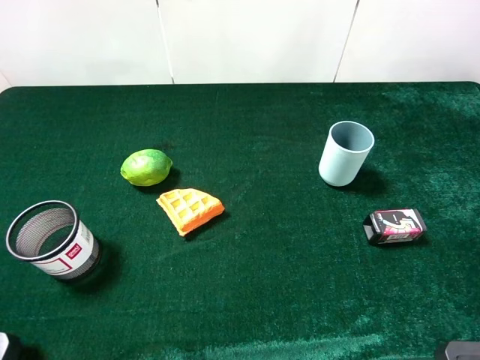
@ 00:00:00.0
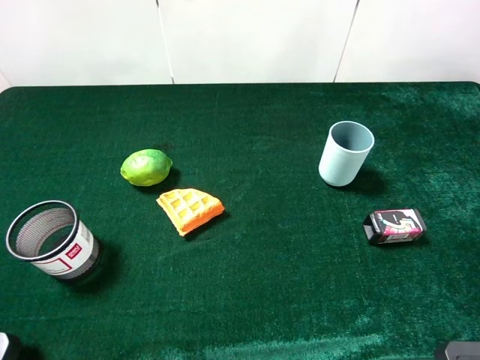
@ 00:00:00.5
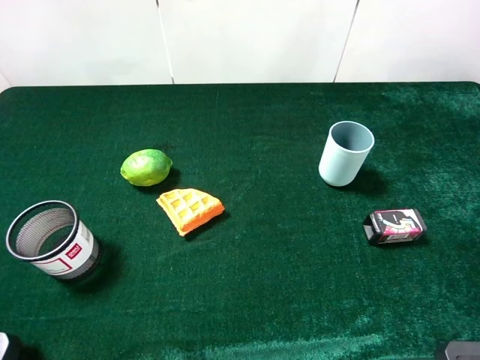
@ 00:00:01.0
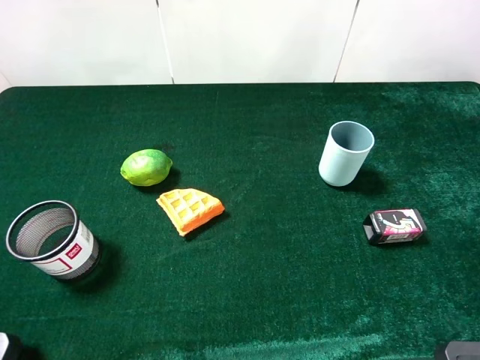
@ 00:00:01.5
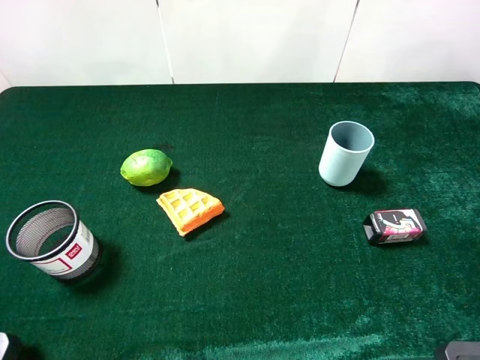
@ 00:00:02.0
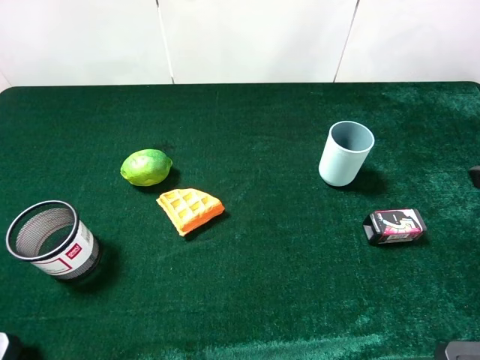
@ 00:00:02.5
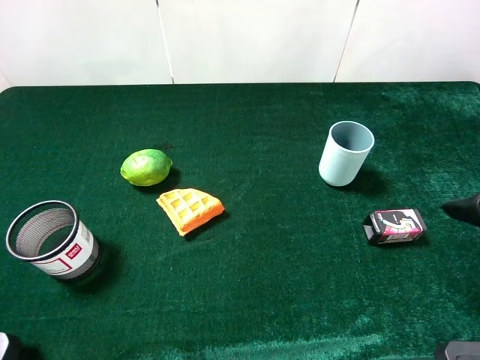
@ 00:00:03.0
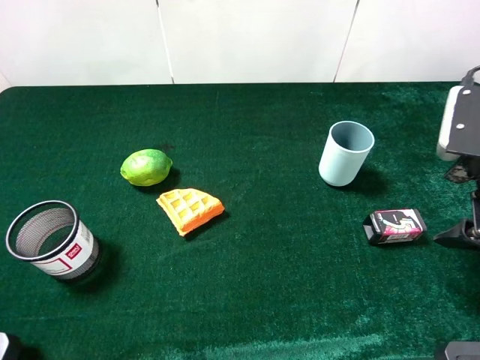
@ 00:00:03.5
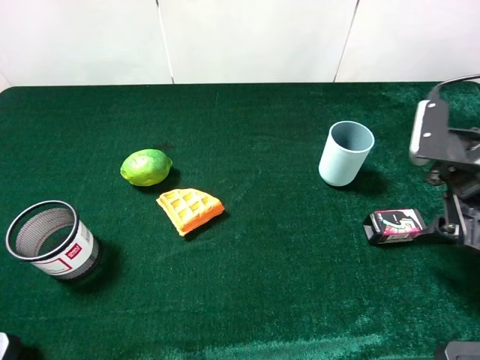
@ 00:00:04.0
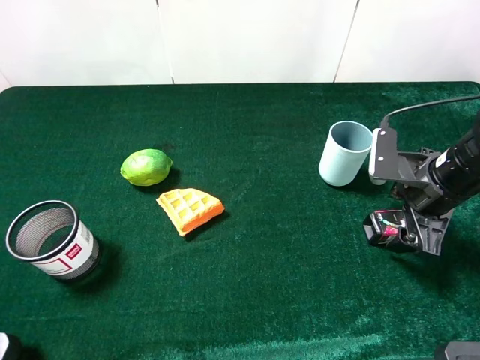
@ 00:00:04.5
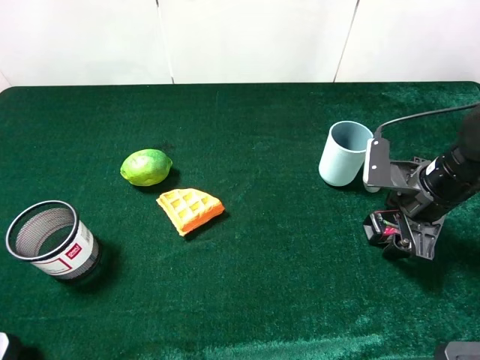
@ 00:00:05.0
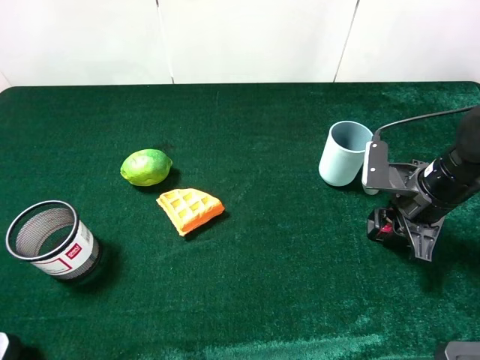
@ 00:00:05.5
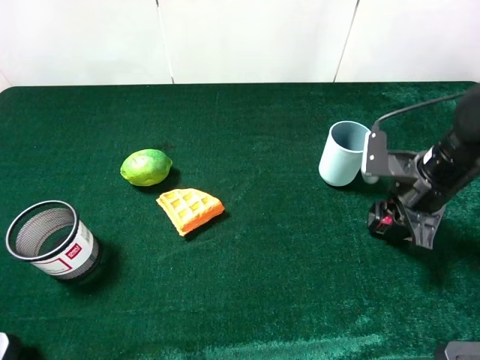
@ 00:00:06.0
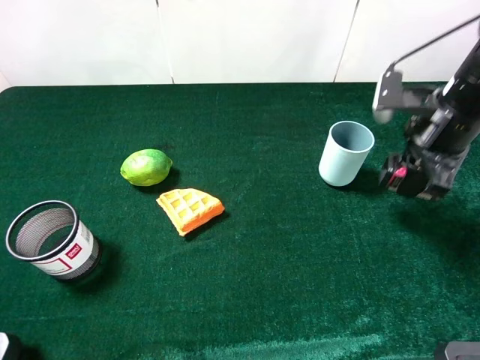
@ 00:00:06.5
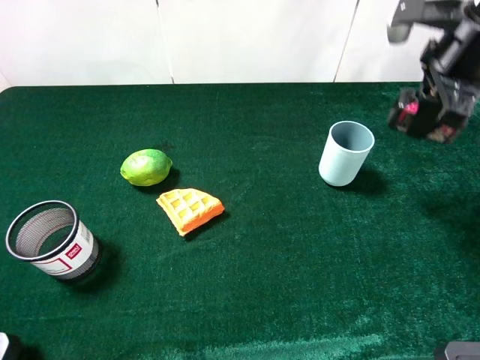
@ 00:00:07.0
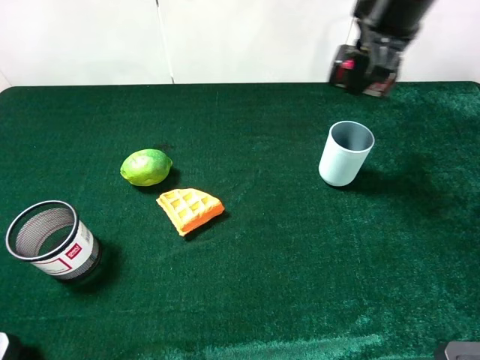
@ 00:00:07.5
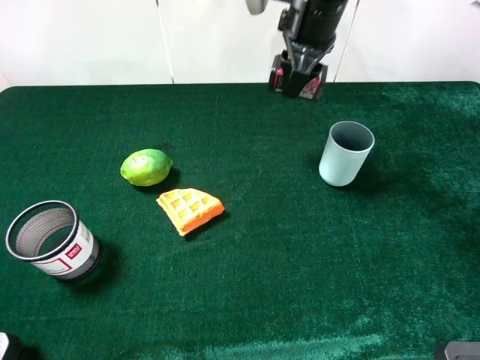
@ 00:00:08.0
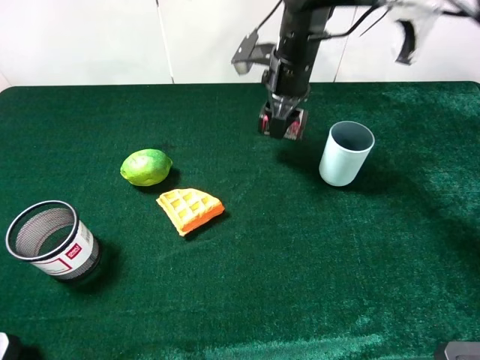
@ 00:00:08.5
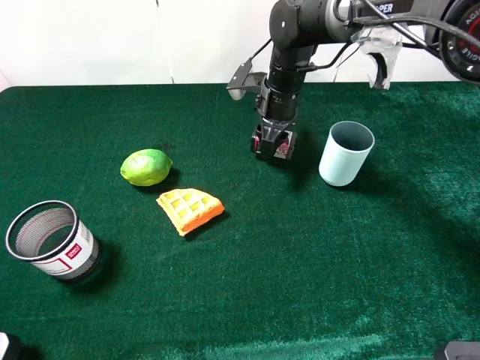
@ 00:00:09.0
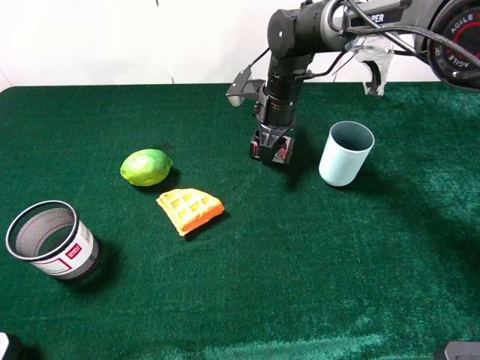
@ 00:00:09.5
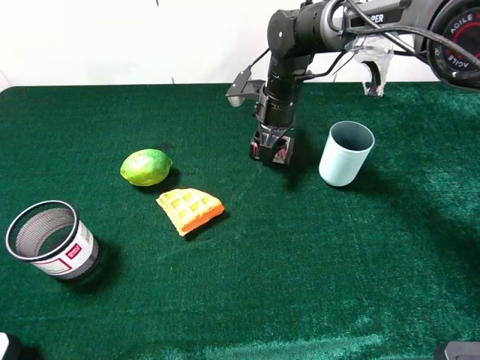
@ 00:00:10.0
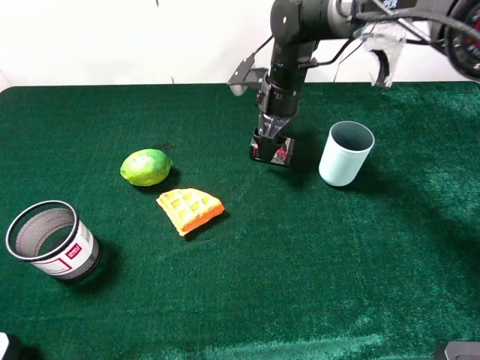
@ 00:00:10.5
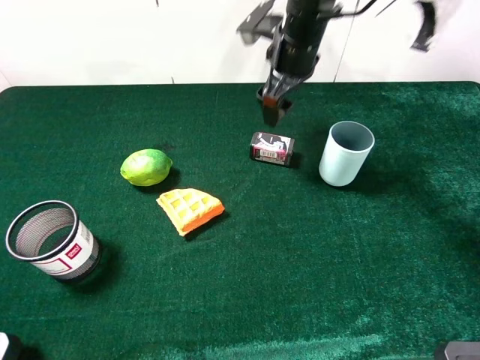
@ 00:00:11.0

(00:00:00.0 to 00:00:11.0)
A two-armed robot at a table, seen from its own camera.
Task of the whole recording: the gripper move the object.
Step, 00:00:00.0 - 00:00:05.5: Grasp the square chewing gum with the right gripper.
Step, 00:00:06.0 - 00:00:10.5: Place the square chewing gum on the table with the right gripper.
00:00:02.0 - 00:00:03.5: The right gripper travels forward and downward by some 15 cm.
00:00:03.5 - 00:00:05.5: The right gripper travels downward by about 10 cm, and closes up.
00:00:05.5 - 00:00:07.5: The right gripper travels upward, forward and to the left by about 25 cm.
00:00:07.5 - 00:00:09.0: The right gripper is displaced downward and to the left by roughly 20 cm.
00:00:09.0 - 00:00:11.0: The right gripper moves upward, roughly 10 cm, and opens.

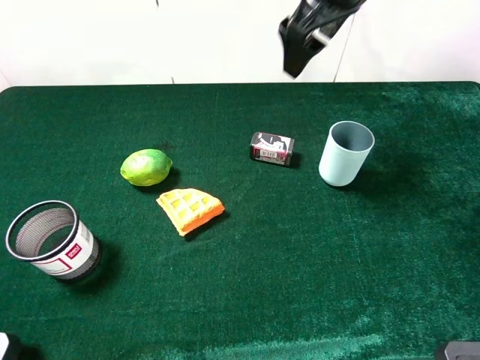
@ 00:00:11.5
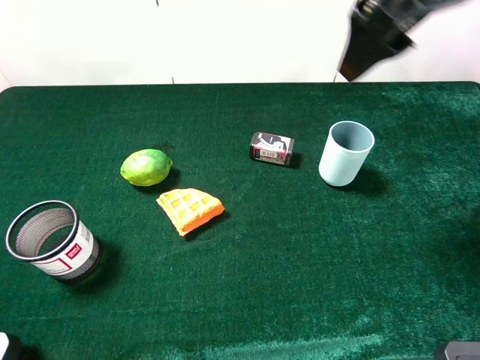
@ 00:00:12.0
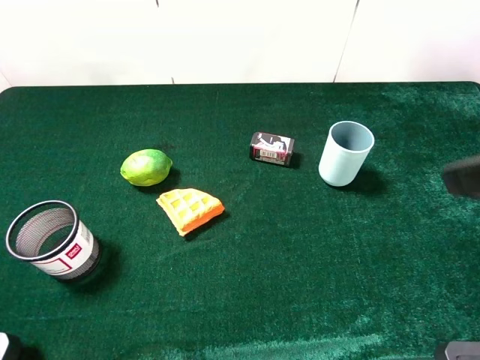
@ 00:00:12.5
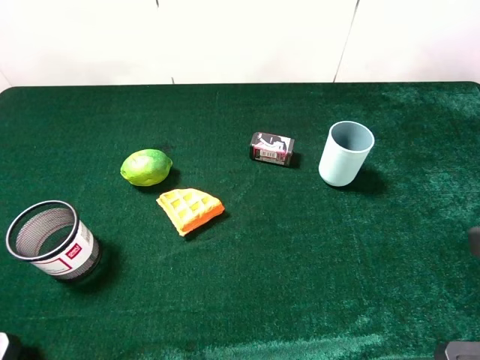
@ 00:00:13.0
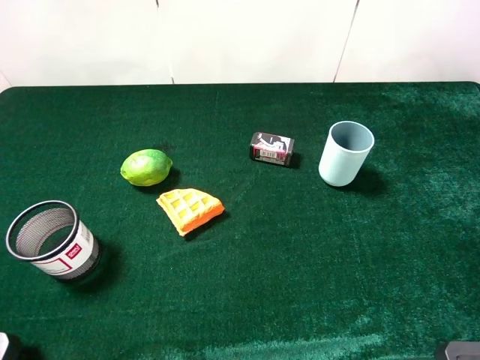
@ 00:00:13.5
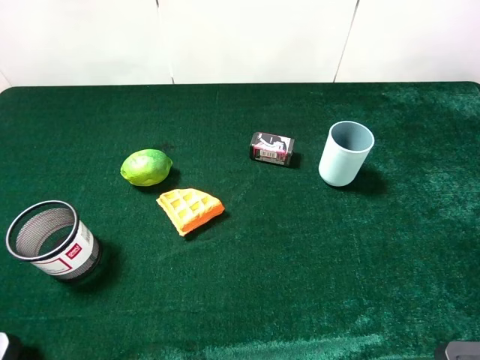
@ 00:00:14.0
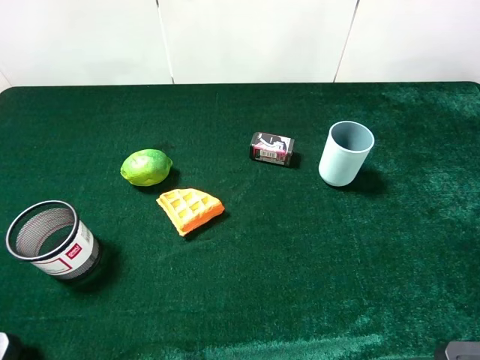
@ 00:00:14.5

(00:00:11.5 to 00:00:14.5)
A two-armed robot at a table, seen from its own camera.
Task of the whole recording: the gripper move the object.
00:00:11.5 - 00:00:13.0: The right gripper heads backward and to the right, covering approximately 35 cm.
